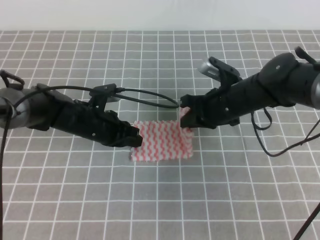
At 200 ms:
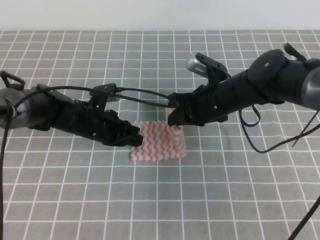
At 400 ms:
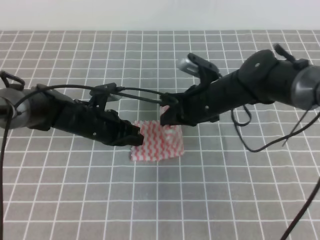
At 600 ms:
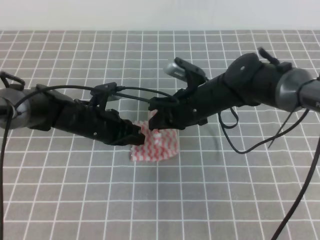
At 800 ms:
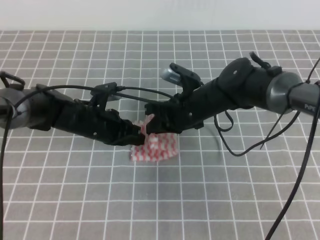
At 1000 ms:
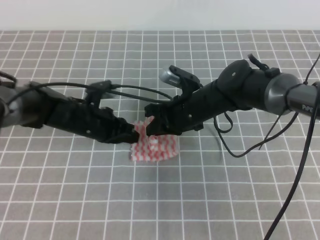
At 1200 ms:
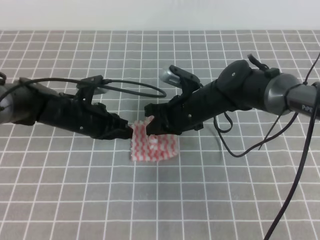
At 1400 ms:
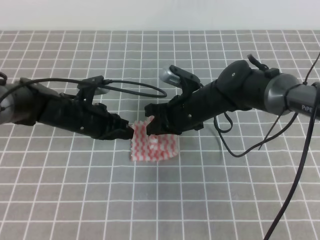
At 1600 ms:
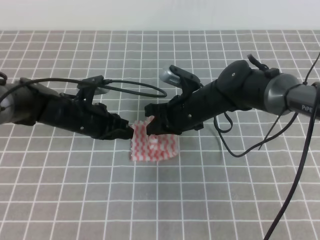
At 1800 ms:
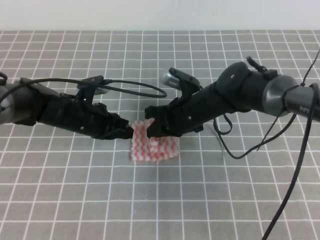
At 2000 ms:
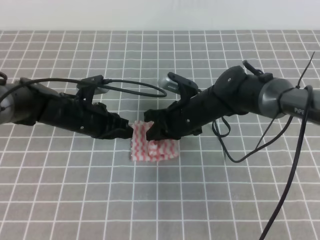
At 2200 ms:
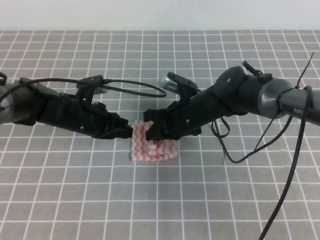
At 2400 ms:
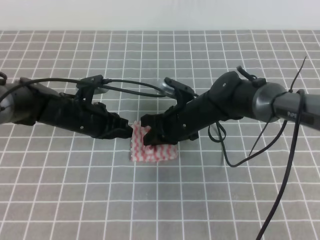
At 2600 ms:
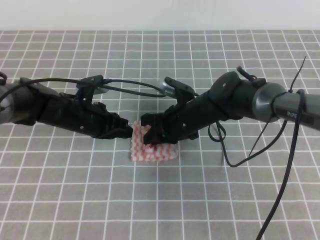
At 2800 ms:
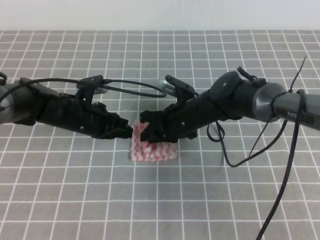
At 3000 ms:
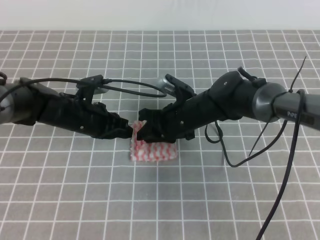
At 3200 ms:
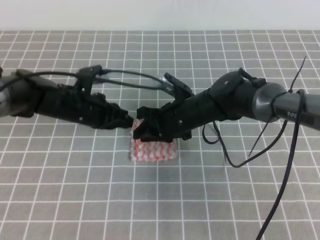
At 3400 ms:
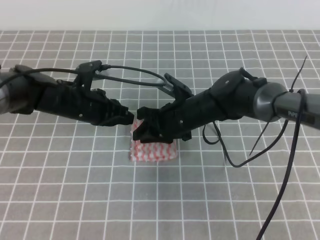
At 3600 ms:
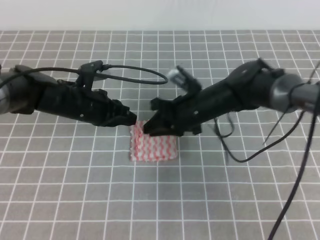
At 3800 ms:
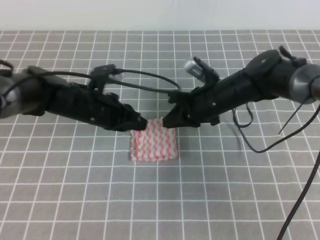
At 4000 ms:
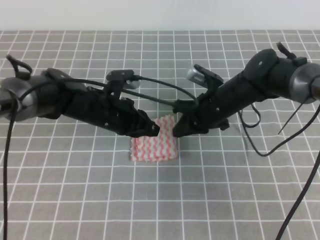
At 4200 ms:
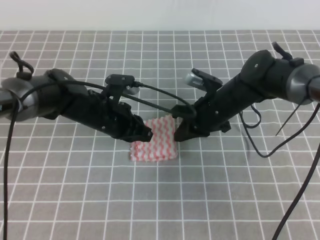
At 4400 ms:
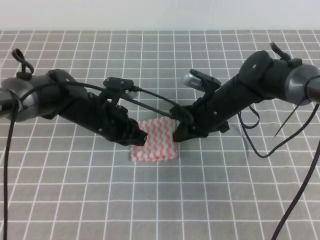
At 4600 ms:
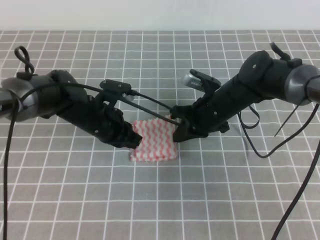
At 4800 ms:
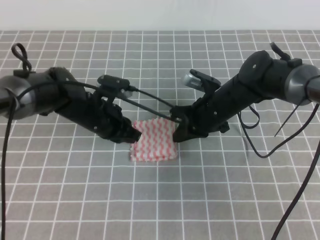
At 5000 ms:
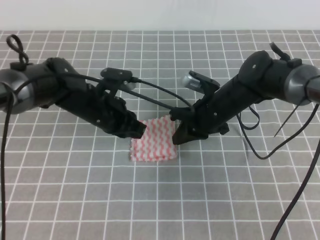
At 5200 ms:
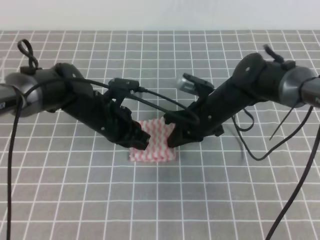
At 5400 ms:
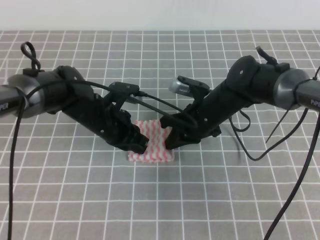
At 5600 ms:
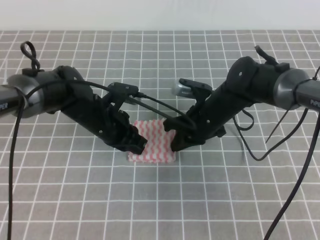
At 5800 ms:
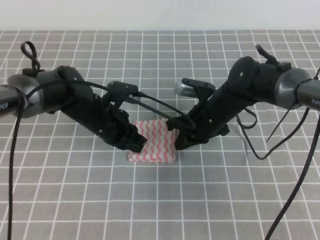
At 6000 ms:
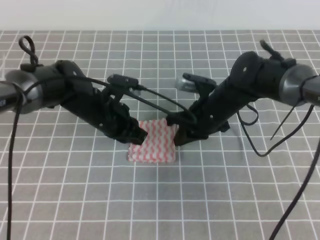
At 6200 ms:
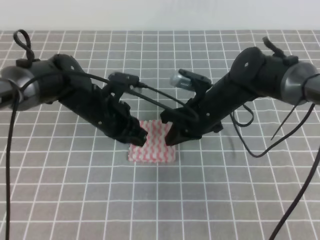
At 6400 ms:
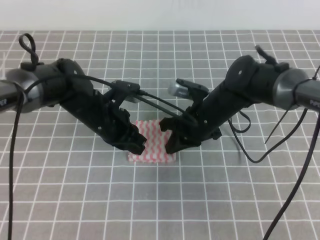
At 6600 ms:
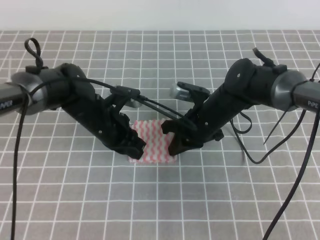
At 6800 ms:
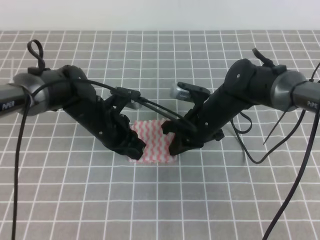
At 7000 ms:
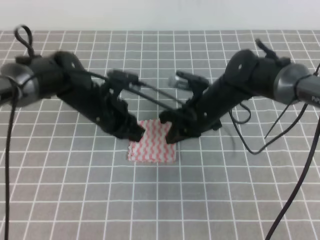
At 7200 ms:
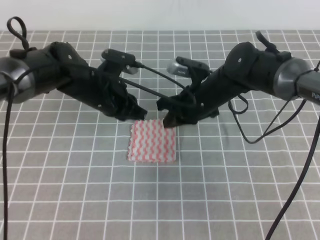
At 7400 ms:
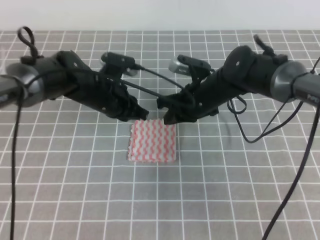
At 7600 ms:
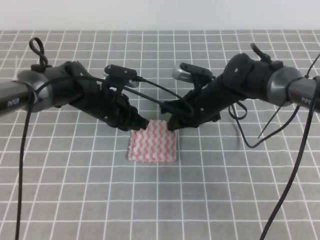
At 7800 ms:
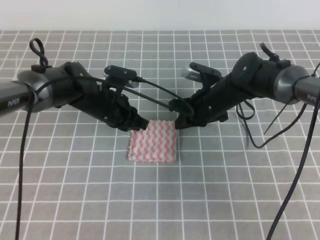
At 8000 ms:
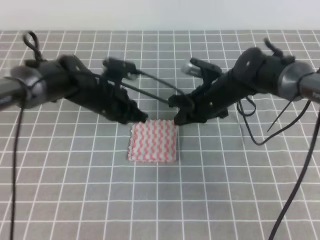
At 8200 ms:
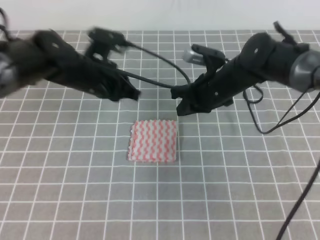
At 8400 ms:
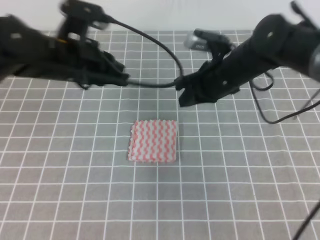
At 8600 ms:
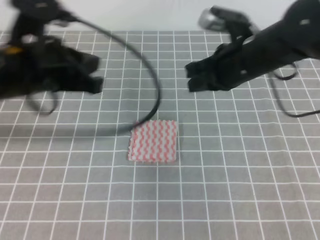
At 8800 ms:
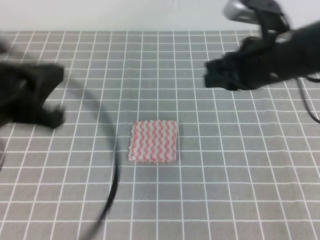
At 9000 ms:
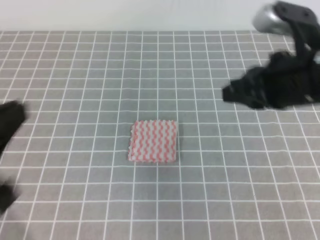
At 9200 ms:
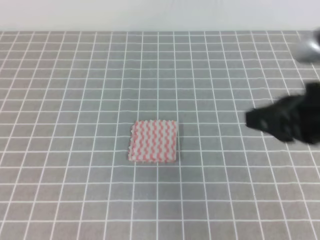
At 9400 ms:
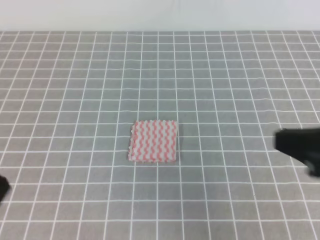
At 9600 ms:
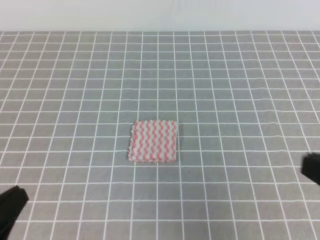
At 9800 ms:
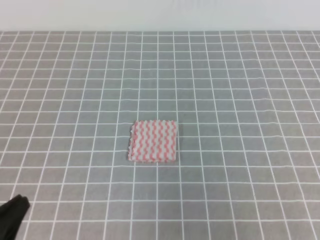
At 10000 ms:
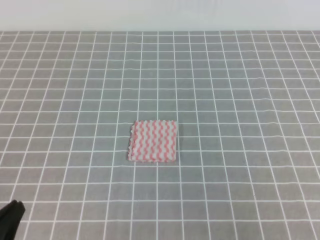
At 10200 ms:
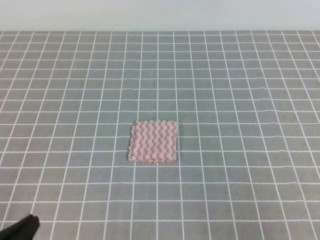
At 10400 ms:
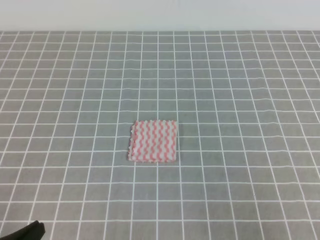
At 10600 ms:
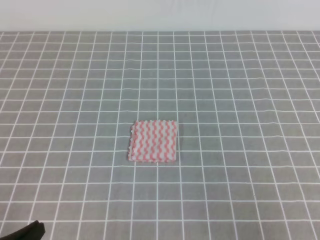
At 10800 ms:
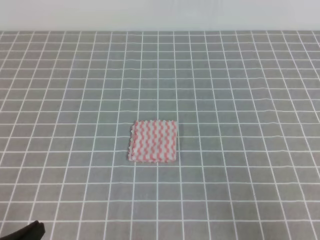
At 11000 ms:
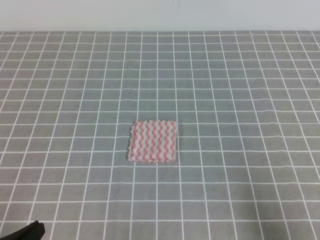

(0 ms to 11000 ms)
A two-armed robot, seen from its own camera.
0 ms - 1600 ms: The right gripper is displaced to the left by some 5 cm.
1600 ms - 3200 ms: The right gripper opens.
3200 ms - 4800 ms: The right gripper heads to the right, covering about 5 cm, and closes its fingers.
4800 ms - 7800 ms: The grippers make only small movements.
7800 ms - 9400 ms: The right gripper heads backward, upward and to the right, covering roughly 35 cm. Meanwhile the left gripper is displaced backward by about 35 cm.
9400 ms - 11000 ms: The right gripper heads downward, to the right and backward, covering approximately 15 cm. The left gripper travels downward by some 15 cm.
